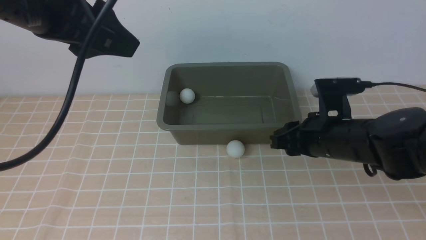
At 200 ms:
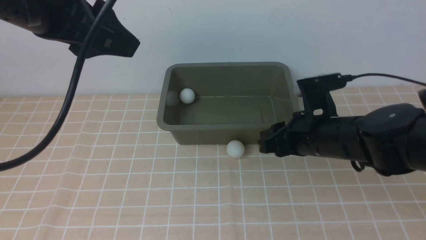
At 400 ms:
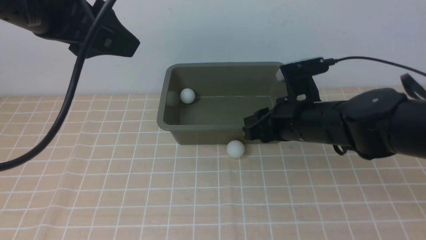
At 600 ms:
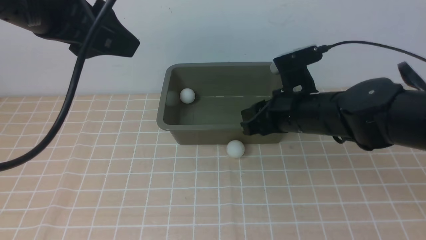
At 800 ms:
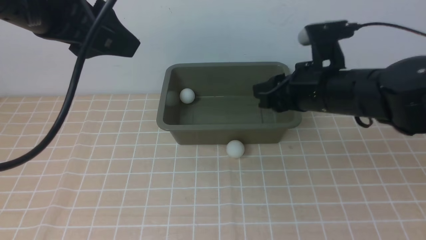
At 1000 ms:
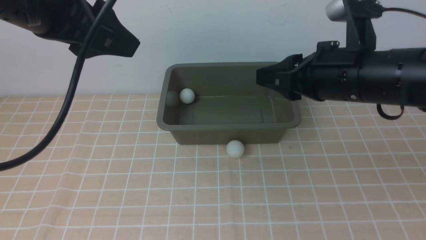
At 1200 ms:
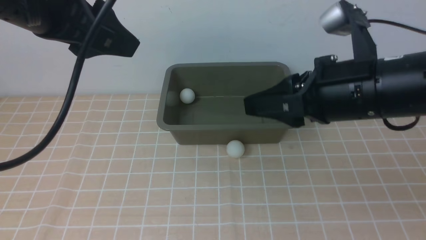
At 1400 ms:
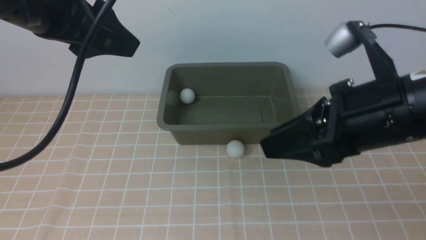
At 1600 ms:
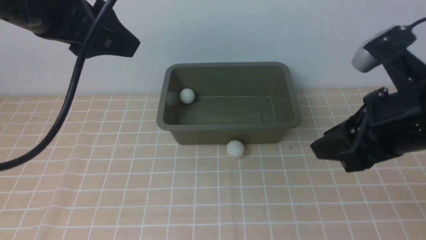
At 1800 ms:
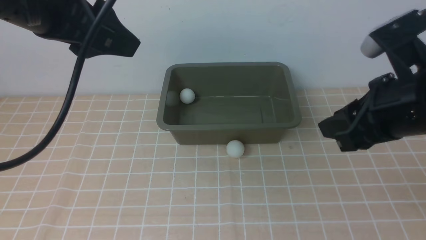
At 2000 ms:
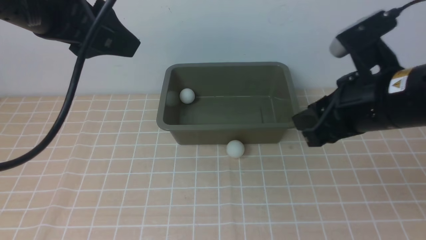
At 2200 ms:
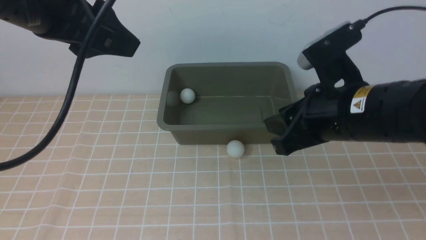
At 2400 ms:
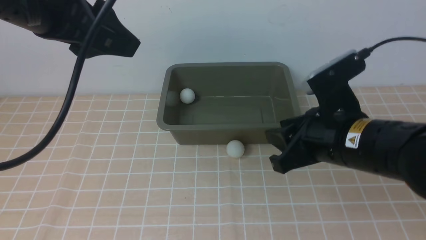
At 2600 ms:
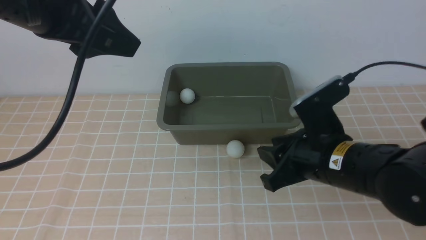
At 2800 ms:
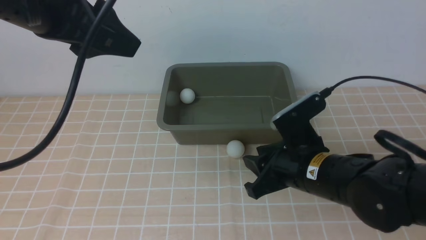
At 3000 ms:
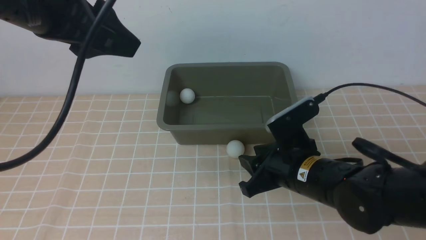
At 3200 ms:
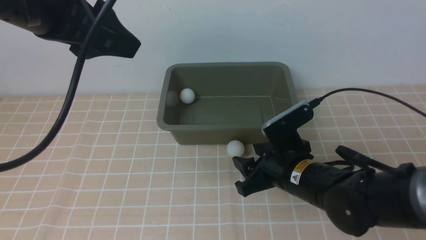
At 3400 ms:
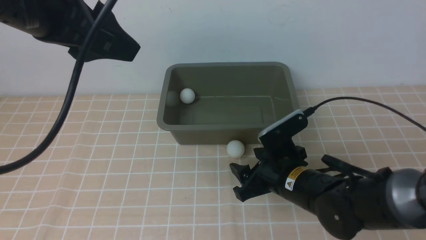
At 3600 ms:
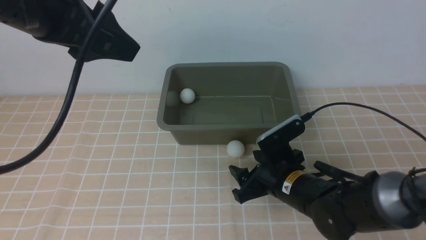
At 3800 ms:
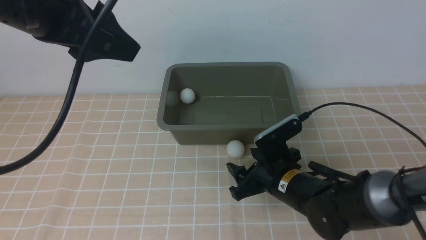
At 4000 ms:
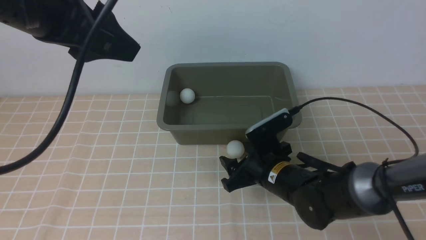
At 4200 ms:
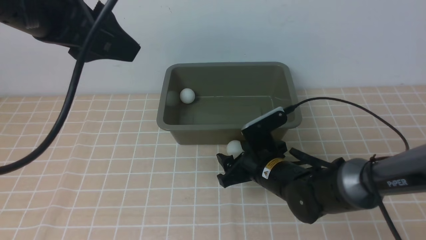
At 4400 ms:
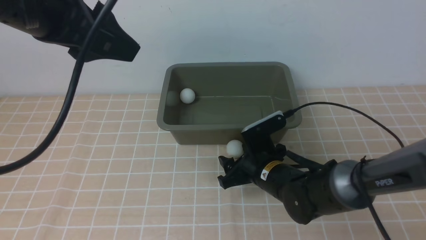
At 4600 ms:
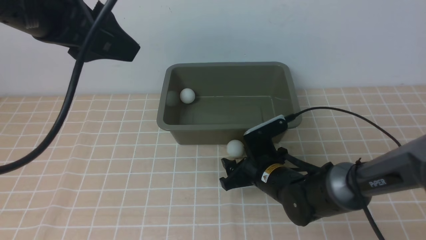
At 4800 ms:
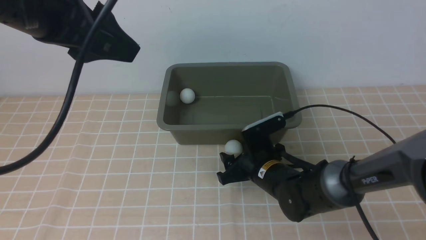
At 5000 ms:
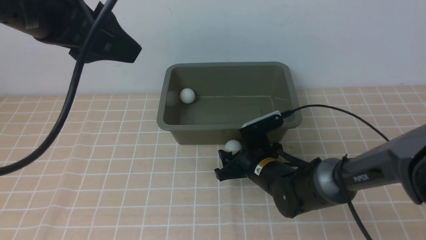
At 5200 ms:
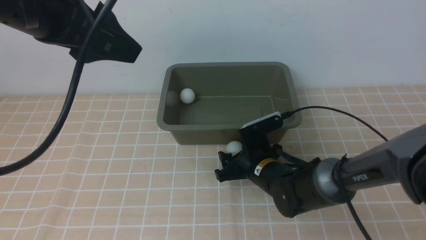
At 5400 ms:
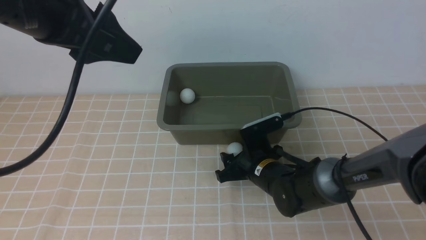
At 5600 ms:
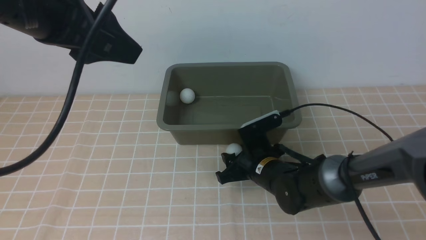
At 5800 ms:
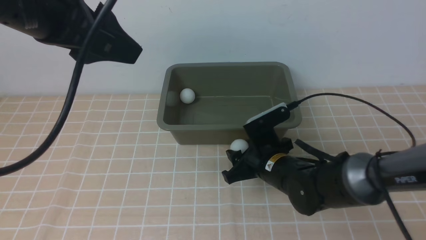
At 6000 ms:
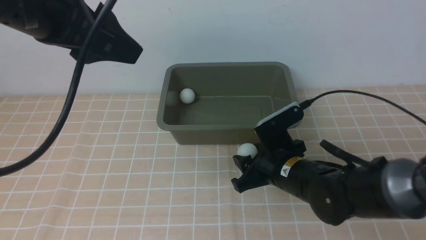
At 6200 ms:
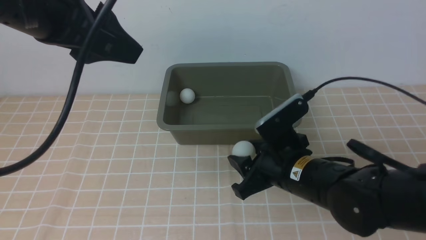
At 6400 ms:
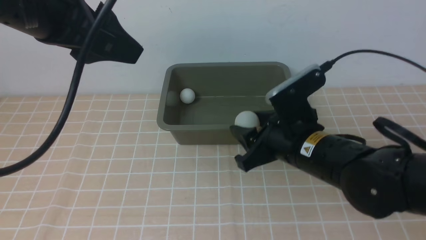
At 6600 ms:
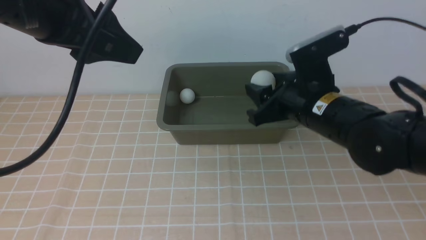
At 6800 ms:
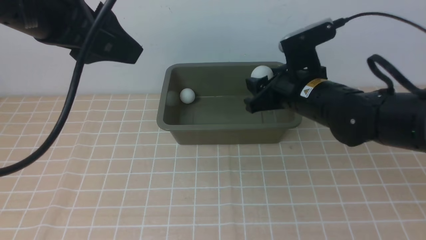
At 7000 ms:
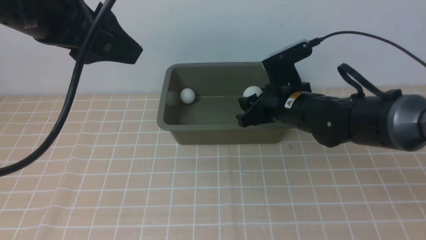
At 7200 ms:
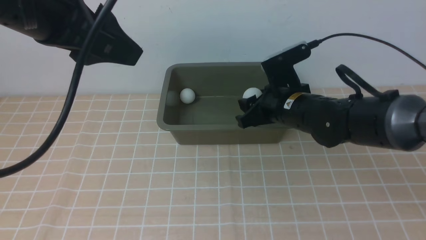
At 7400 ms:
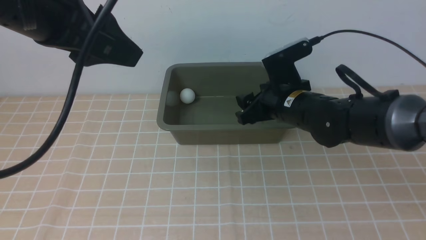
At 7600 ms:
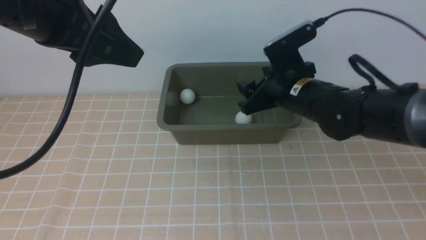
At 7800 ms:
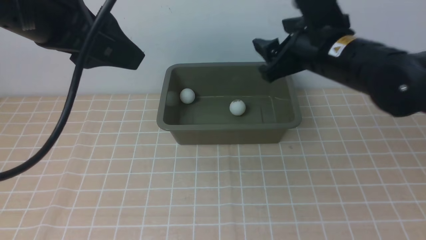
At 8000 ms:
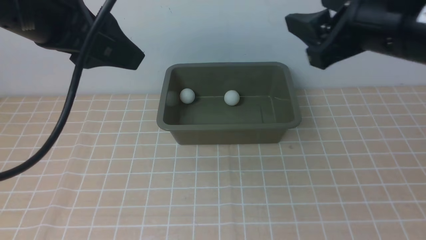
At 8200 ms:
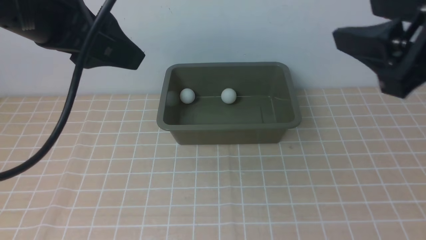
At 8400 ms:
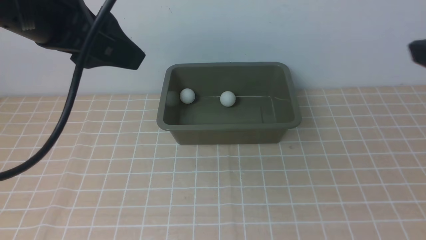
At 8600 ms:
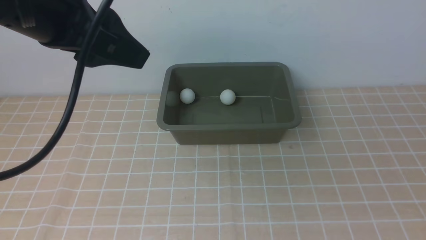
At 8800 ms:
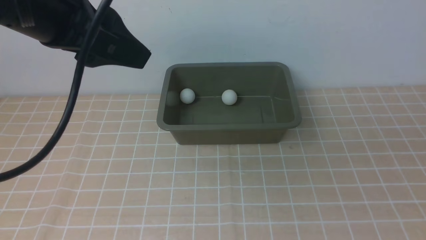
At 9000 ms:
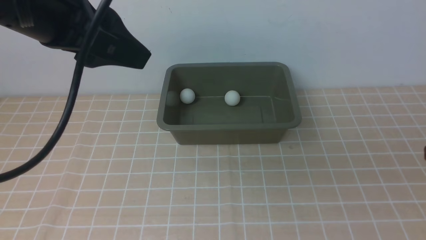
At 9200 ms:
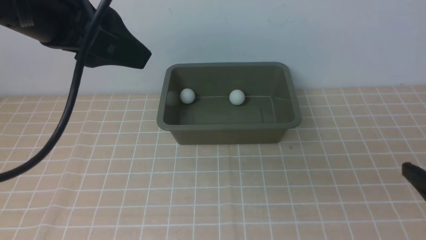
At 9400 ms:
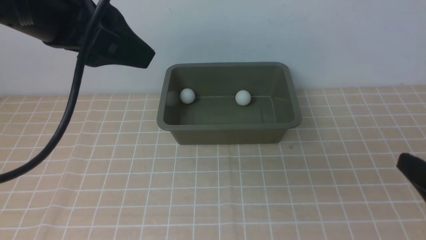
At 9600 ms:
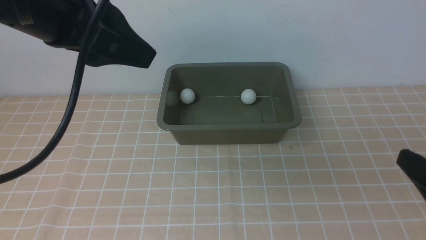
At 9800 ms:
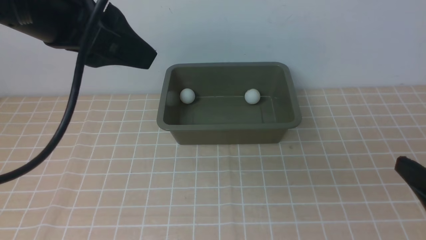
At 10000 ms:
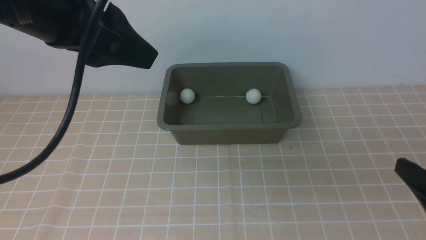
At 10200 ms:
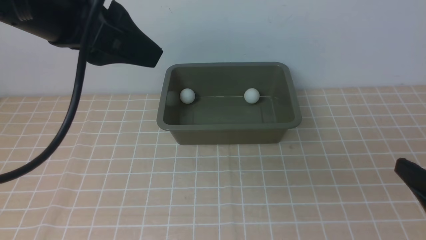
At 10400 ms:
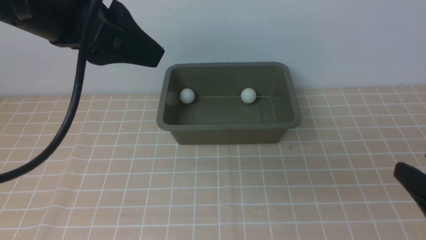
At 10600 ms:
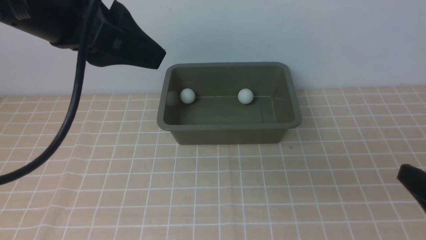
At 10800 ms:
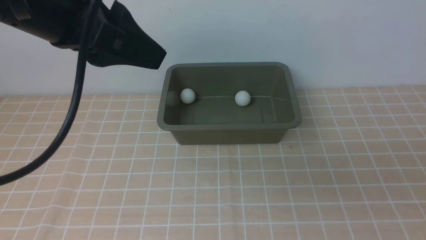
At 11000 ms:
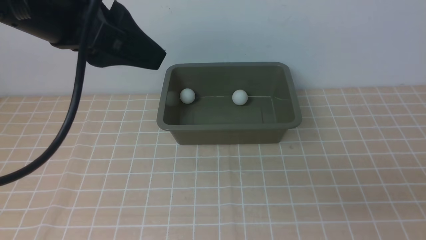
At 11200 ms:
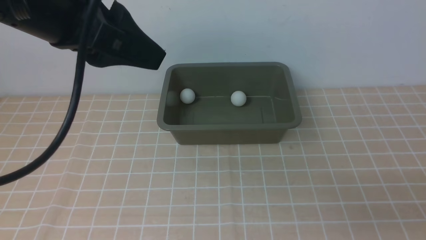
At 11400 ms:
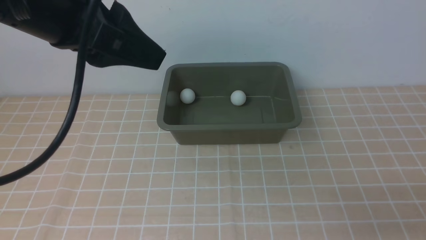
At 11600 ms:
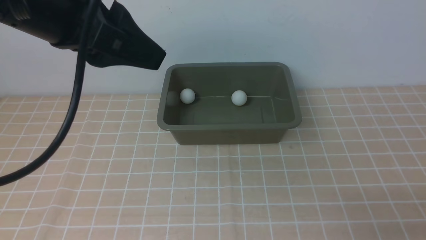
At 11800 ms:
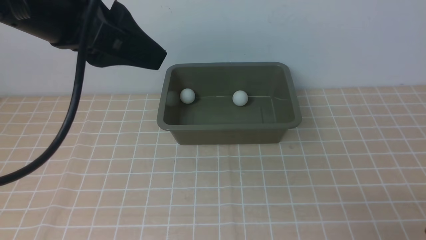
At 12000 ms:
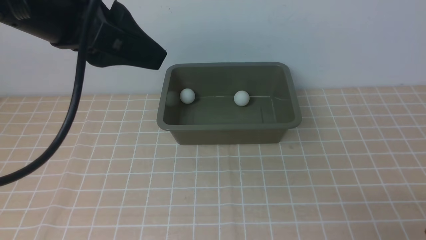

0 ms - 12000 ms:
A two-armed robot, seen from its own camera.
Step, 0 ms - 6000 ms: use the right arm to clamp the table tennis ball closest to it.
Step, 6200 ms - 7800 ms: use the right arm to put the table tennis ball into the box.
0 ms - 1600 ms: The right gripper is displaced upward and backward by about 15 cm.
1600 ms - 3000 ms: The right gripper shifts approximately 20 cm downward and to the left.
3000 ms - 4400 ms: The right gripper heads downward and forward, covering approximately 10 cm, and opens.
4400 ms - 6000 ms: The right gripper heads upward, covering about 5 cm, and closes.
6000 ms - 7600 ms: The right gripper goes up and down, approximately 10 cm each way, reversing 2 times, and opens its fingers.
7600 ms - 9000 ms: The right gripper moves backward and to the right, about 30 cm.
9000 ms - 10400 ms: There are only small adjustments of the grippers.
10400 ms - 12000 ms: The right gripper shifts approximately 10 cm downward.

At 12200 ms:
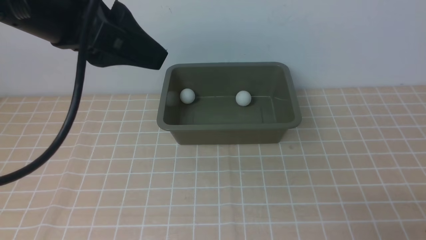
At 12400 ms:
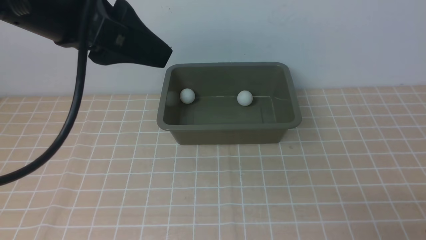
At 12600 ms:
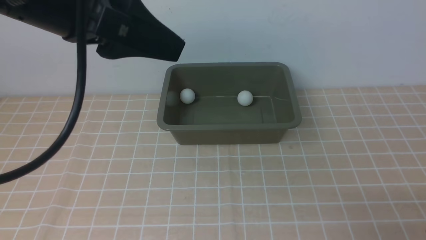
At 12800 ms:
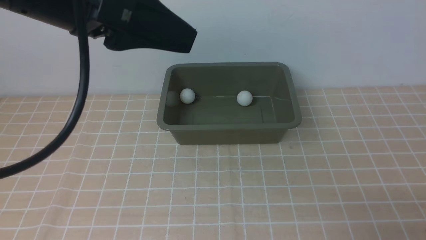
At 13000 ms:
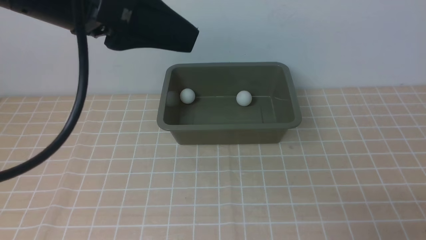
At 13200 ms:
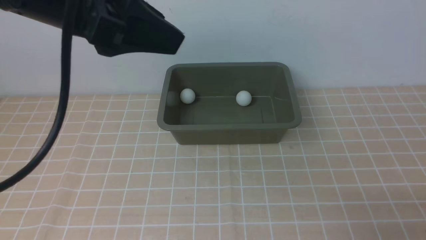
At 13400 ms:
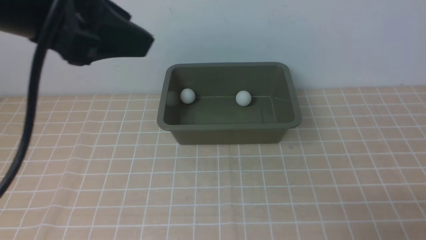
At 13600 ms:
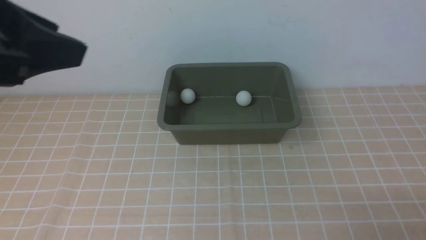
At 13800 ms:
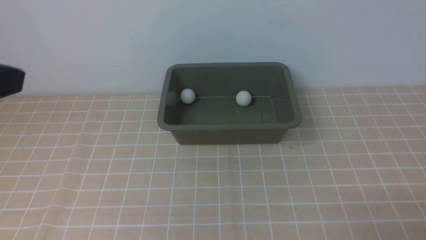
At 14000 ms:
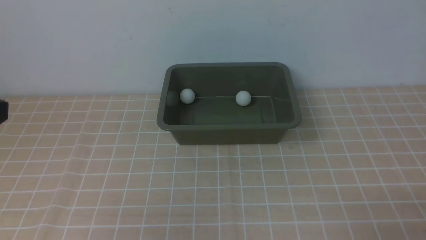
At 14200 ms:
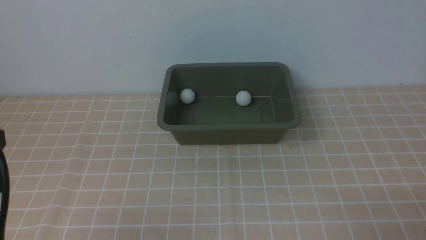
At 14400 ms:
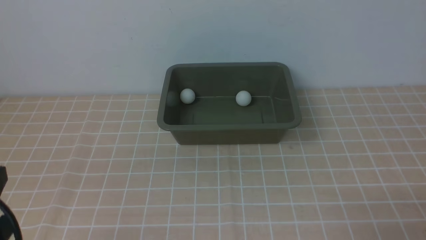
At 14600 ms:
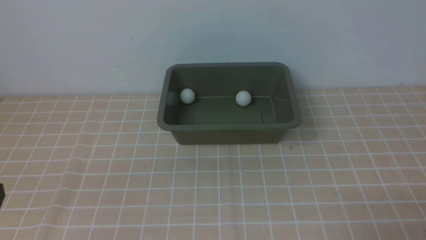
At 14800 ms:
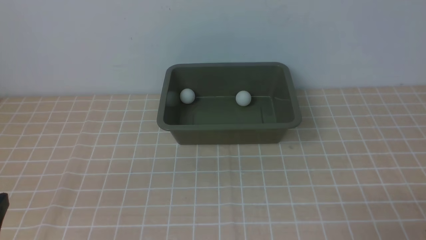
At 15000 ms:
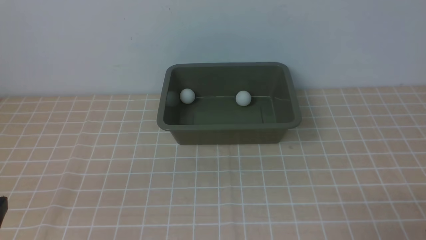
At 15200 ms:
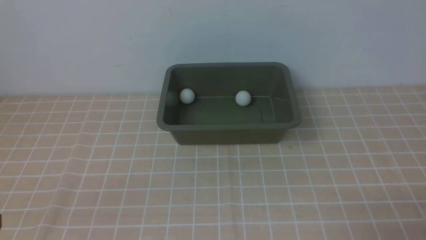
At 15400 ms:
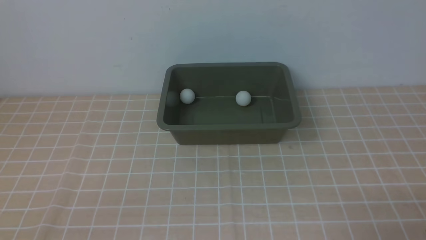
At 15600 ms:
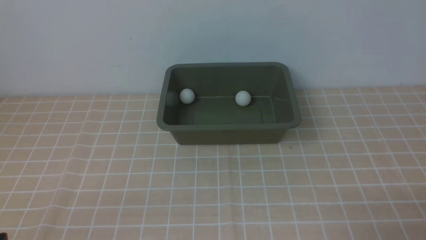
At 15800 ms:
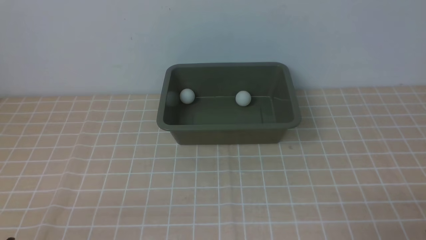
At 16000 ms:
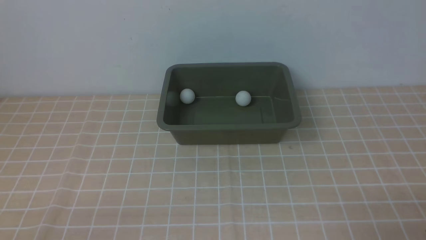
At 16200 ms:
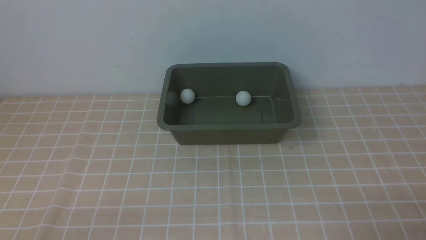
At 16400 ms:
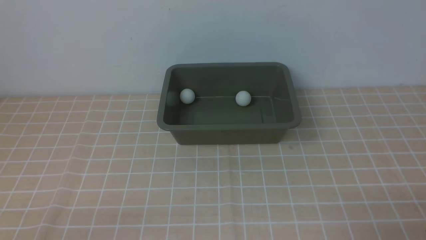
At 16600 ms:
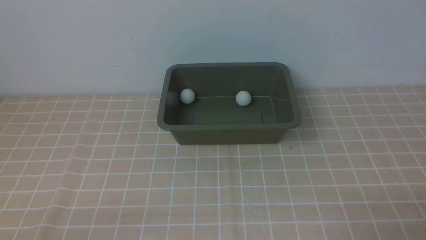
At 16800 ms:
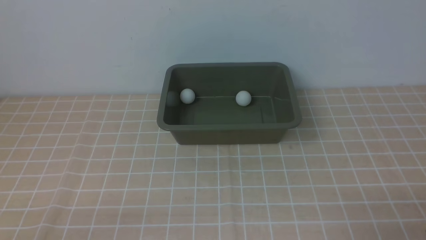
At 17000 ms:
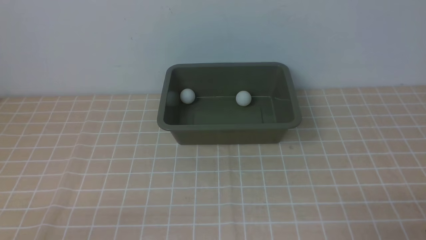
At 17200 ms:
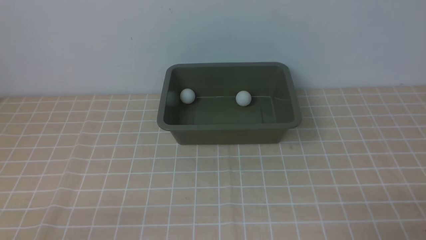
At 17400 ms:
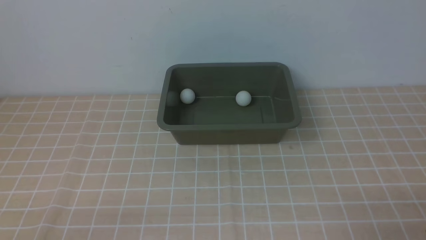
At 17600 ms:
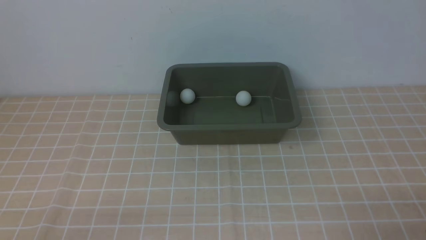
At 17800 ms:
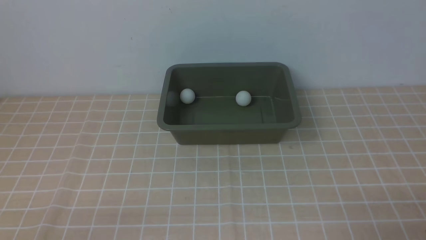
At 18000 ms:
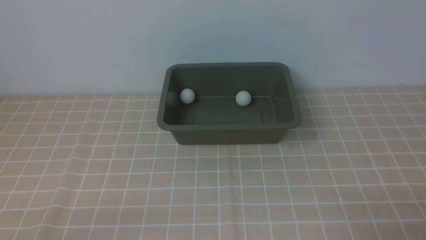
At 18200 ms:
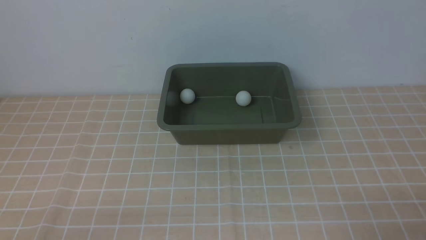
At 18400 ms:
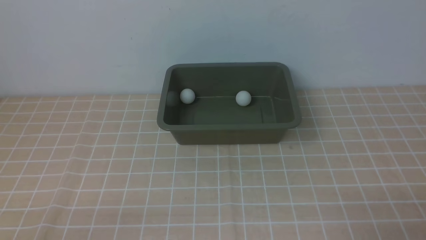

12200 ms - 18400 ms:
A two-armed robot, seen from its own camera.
12200 ms - 13800 ms: The left gripper travels to the left and backward by approximately 15 cm.
13800 ms - 15400 ms: The left gripper is displaced downward and backward by about 20 cm.
16800 ms - 18400 ms: Both grippers stay about where they are.
